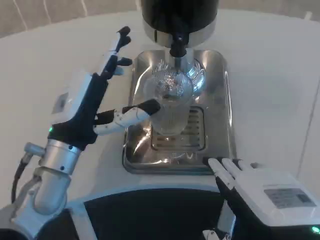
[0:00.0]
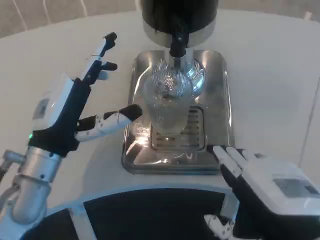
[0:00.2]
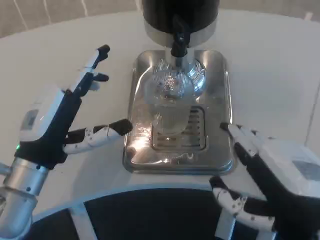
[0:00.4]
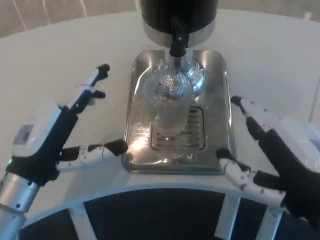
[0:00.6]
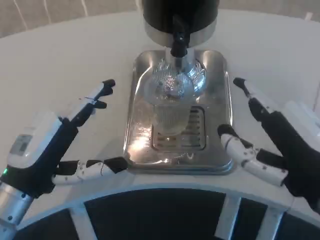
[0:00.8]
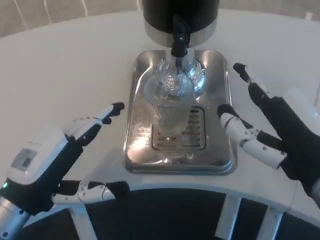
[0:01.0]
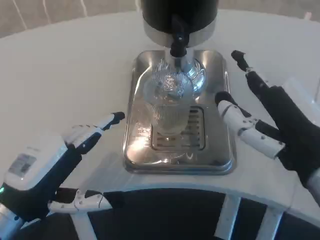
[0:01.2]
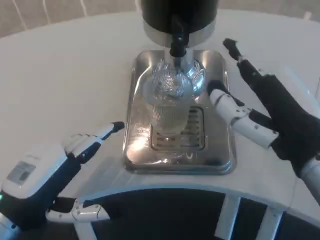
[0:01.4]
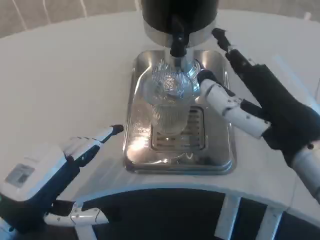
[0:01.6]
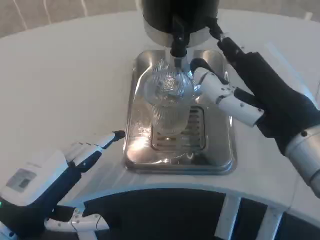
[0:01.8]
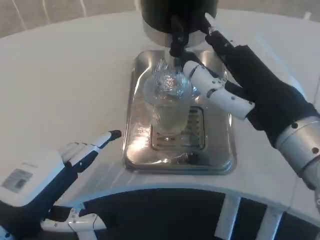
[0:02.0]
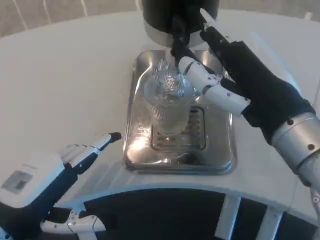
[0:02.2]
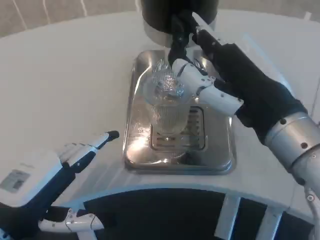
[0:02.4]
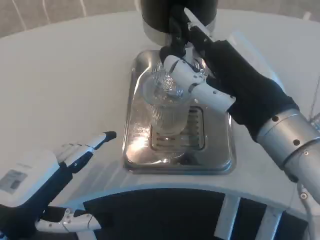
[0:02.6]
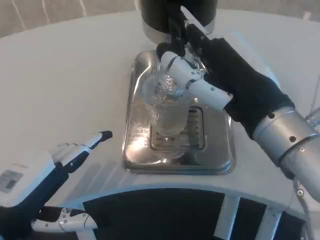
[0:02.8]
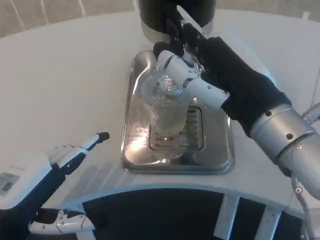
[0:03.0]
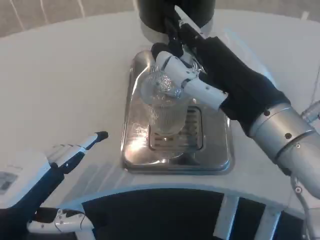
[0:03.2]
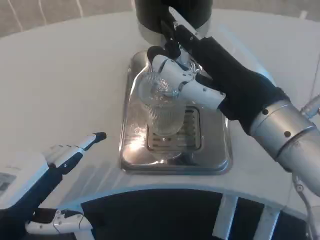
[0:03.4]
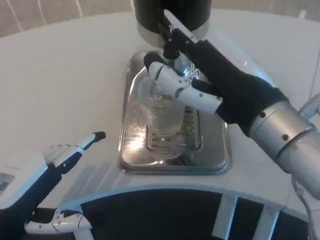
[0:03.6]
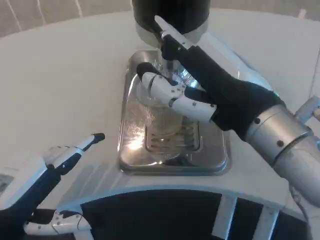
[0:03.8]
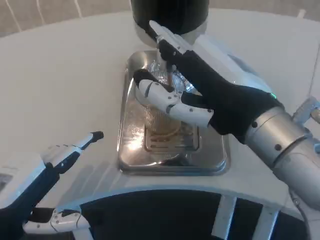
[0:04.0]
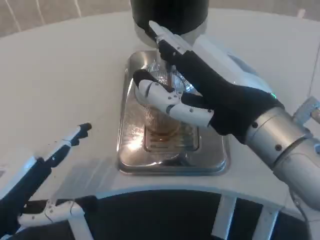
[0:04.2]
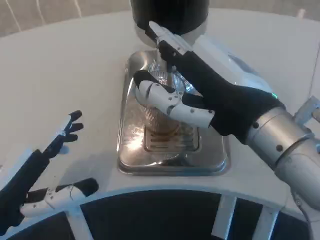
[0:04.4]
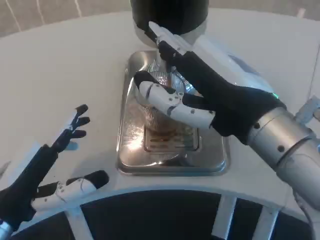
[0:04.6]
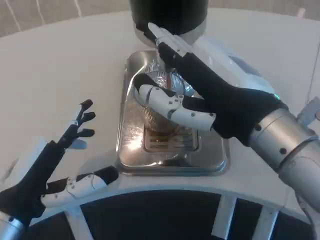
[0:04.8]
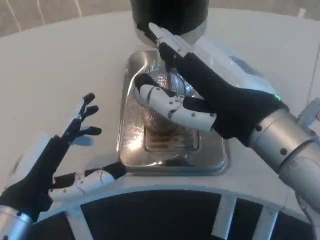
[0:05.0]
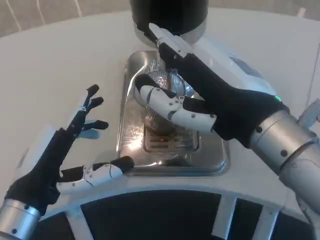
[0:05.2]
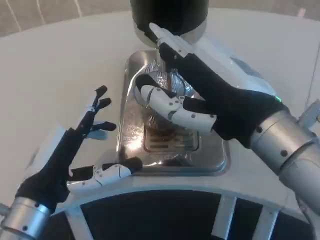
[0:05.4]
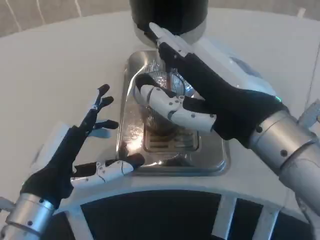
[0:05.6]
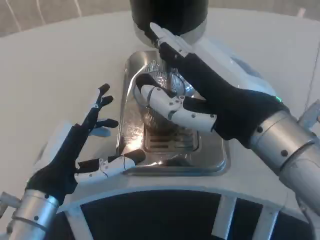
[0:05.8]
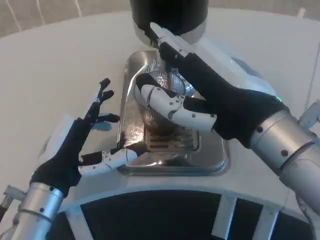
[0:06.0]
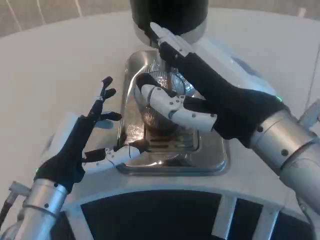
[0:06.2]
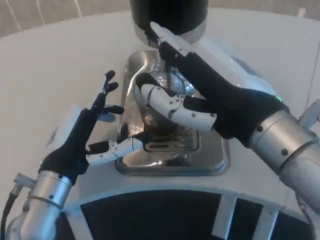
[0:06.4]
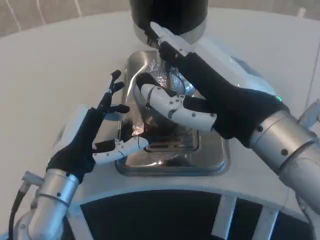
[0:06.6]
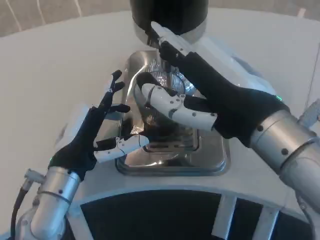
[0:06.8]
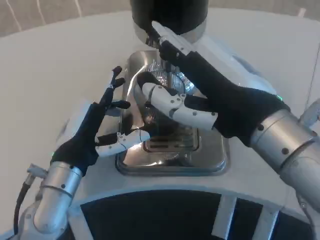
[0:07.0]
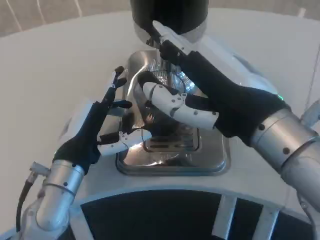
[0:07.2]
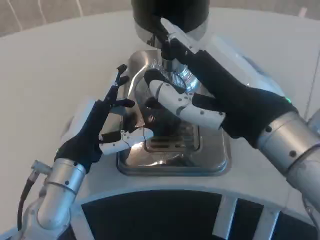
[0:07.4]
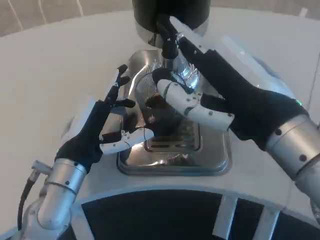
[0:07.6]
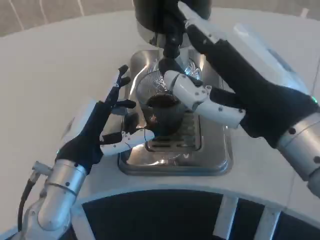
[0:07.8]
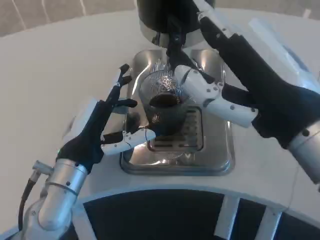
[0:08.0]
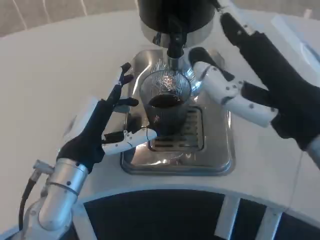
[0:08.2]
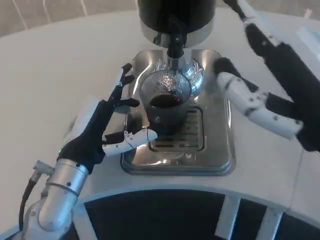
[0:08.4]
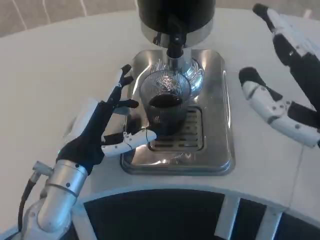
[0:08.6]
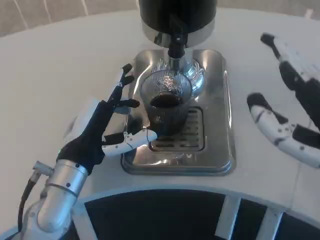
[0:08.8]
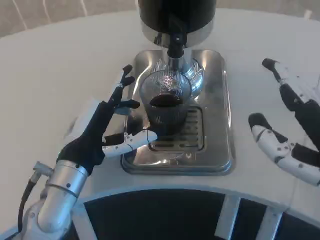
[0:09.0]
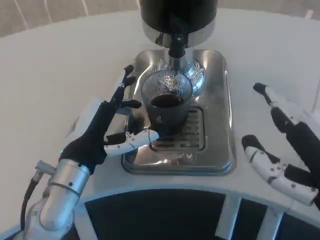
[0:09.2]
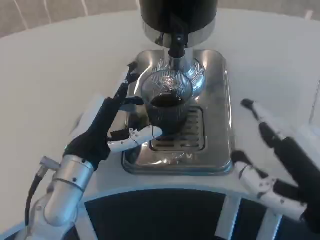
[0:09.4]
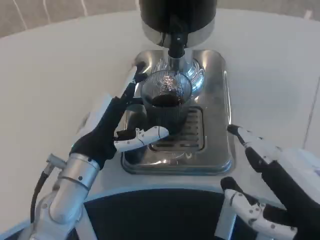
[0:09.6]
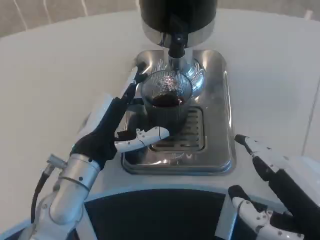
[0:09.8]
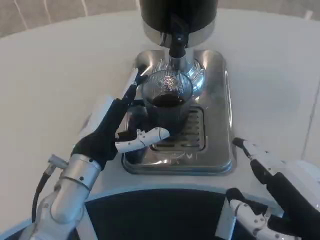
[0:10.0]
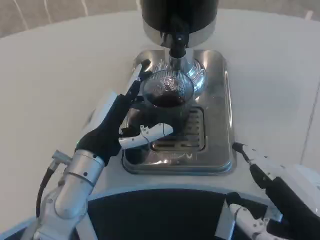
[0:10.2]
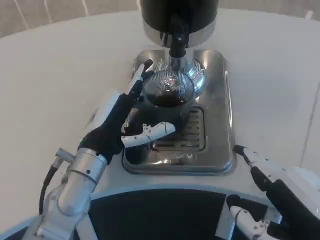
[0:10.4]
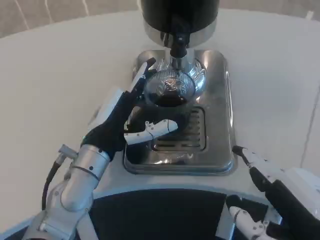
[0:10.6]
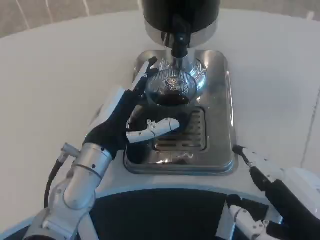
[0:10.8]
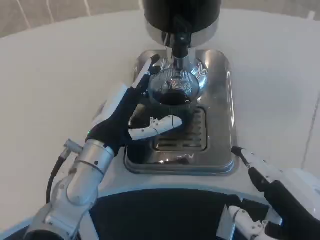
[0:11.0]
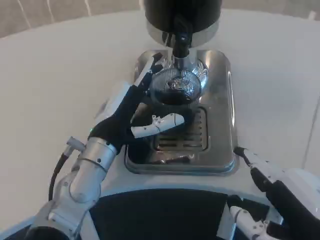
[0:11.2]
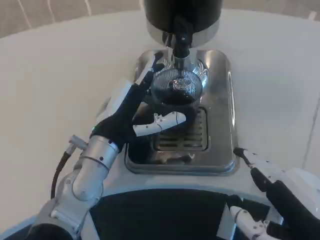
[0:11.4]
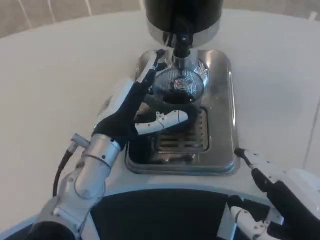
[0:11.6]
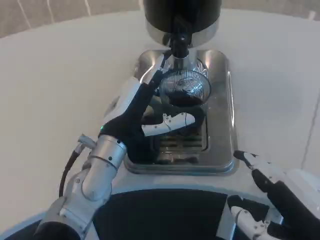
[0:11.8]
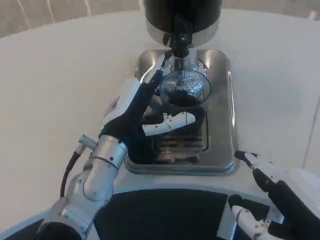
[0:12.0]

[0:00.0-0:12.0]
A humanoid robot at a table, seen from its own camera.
Task of the whole recording: Grasp the cup under the faucet to collect the drink, then remove the cup.
0:00.0 to 0:01.6: The left hand heads backward and to the left, covering some 15 cm. The right hand moves forward and upward, approximately 10 cm.
0:04.4 to 0:06.0: The left hand is displaced to the right and forward by roughly 10 cm.
0:07.6 to 0:09.0: The right hand shifts about 10 cm to the right and backward.
0:09.0 to 0:10.4: The right hand changes place by roughly 5 cm.
0:10.4 to 0:12.0: There are only small adjustments of the hands.

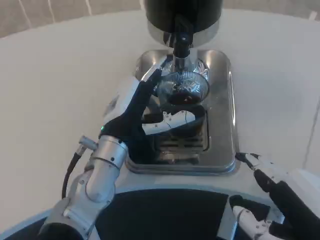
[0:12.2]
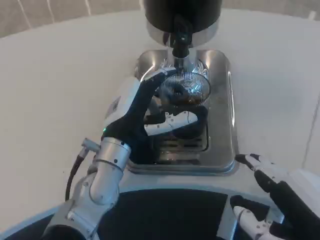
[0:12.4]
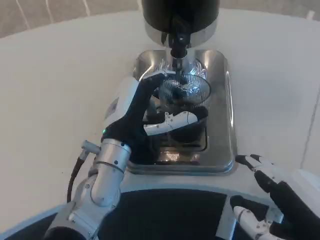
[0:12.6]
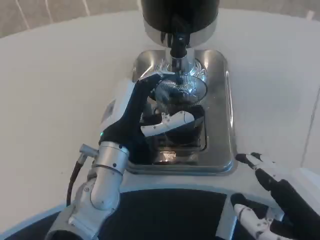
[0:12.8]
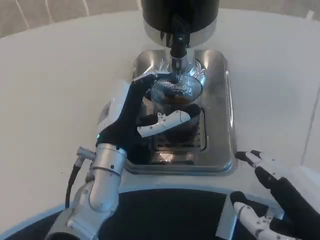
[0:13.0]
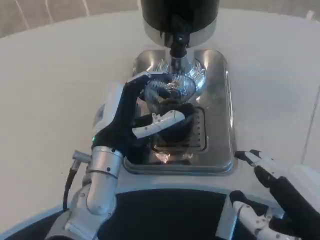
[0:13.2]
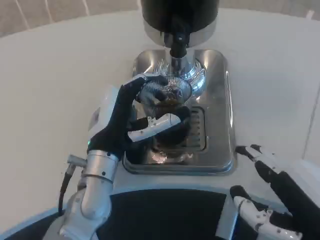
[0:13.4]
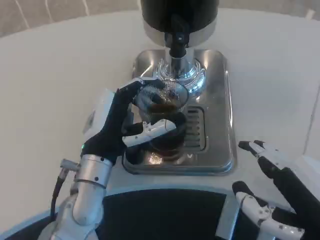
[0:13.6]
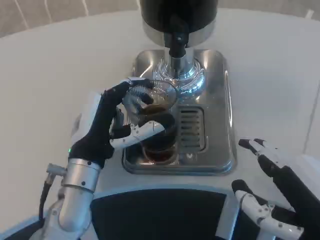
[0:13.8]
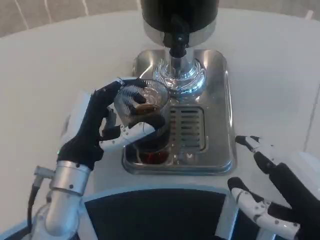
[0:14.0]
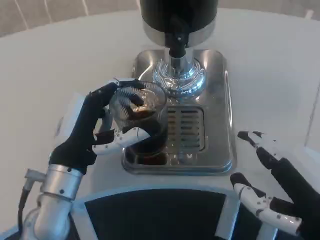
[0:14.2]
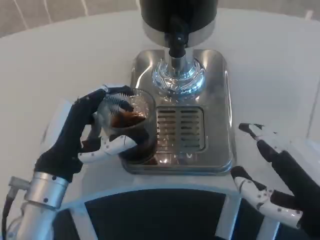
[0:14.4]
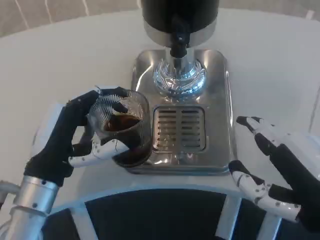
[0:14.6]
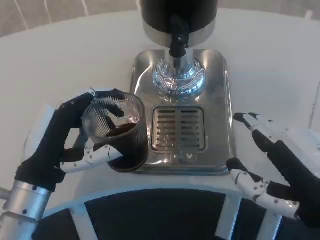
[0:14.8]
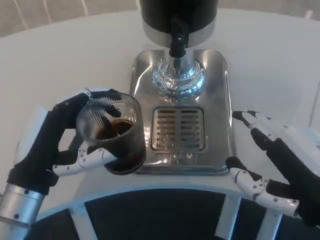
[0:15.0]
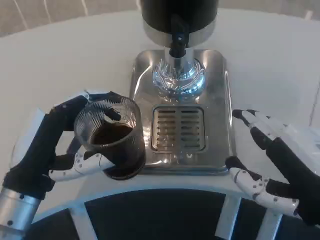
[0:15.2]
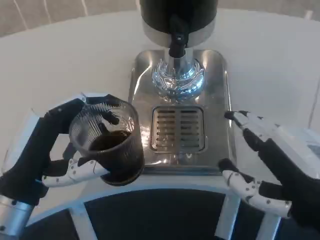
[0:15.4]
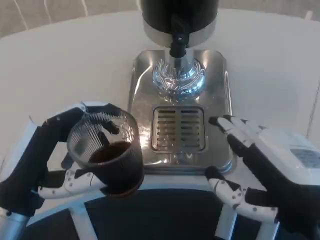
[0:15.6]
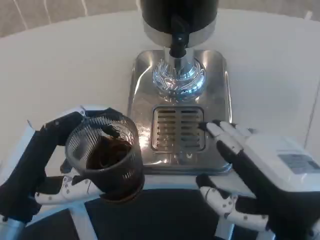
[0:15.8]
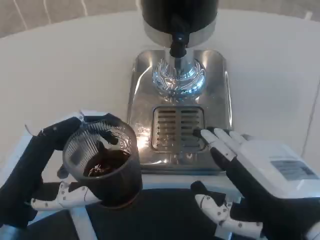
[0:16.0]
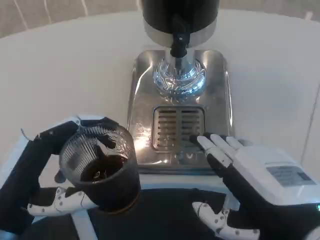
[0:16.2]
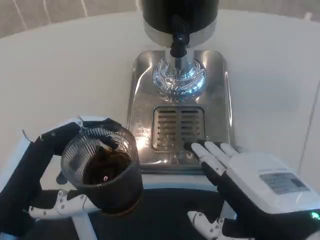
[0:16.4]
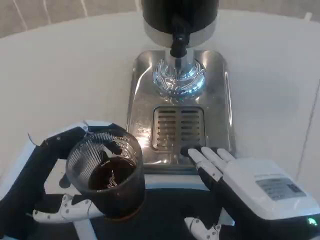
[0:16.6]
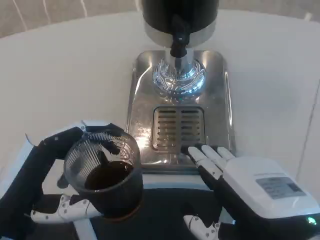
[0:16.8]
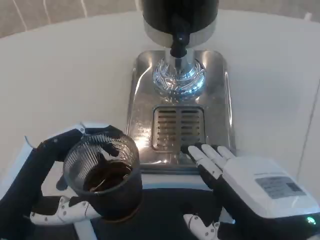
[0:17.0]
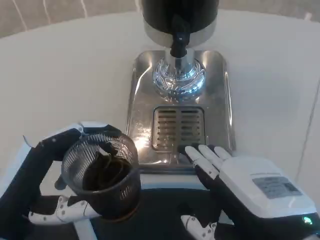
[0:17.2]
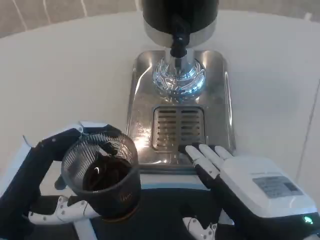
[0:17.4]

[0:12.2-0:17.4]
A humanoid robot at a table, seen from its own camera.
Task of the whole recording: Grasp the cup under the faucet to collect the drink, then remove the cup.
0:12.2 to 0:14.0: The left hand shifts by roughly 5 cm.
0:14.0 to 0:15.6: The left hand is displaced backward and to the left by about 10 cm.
